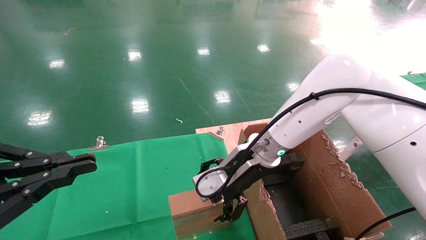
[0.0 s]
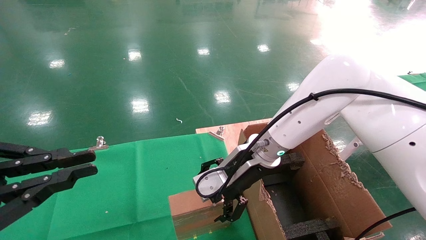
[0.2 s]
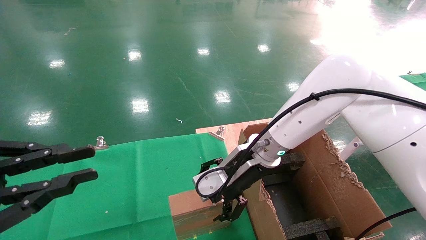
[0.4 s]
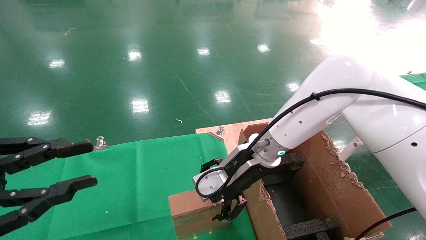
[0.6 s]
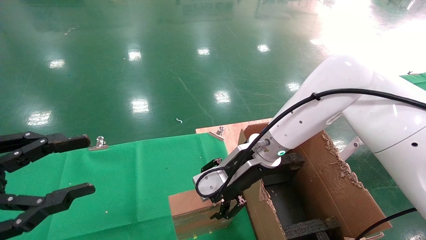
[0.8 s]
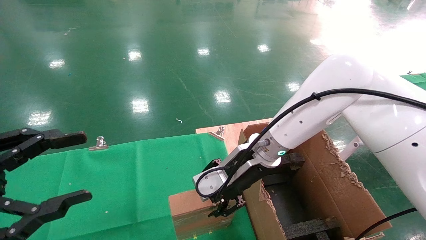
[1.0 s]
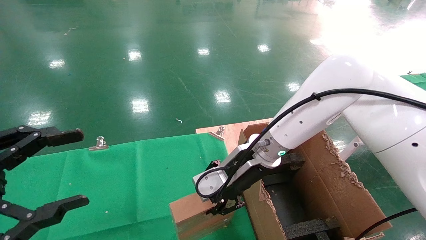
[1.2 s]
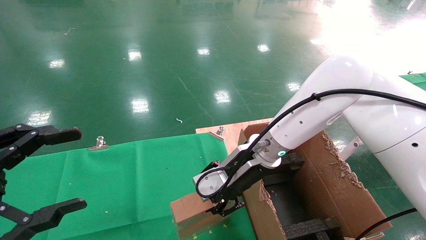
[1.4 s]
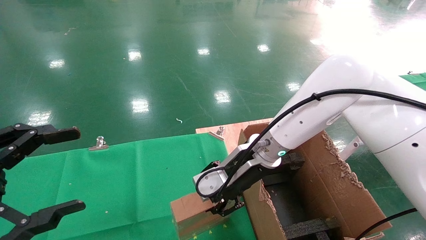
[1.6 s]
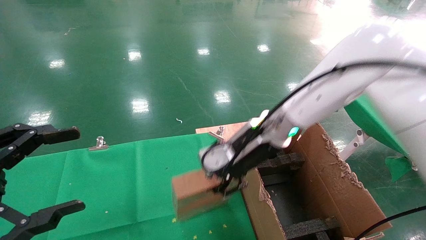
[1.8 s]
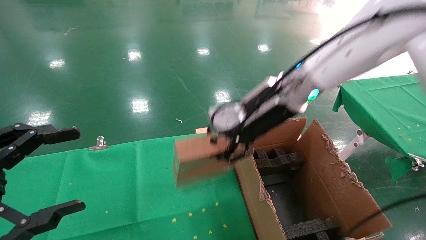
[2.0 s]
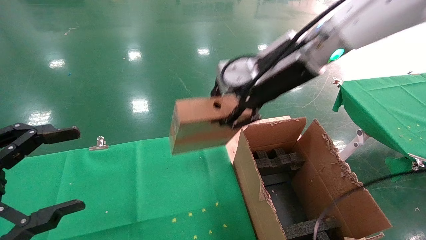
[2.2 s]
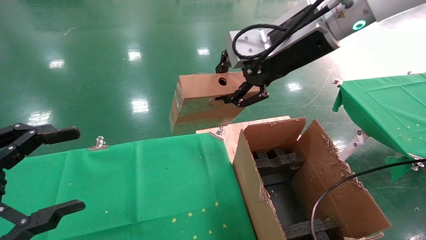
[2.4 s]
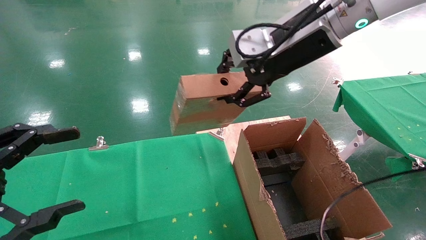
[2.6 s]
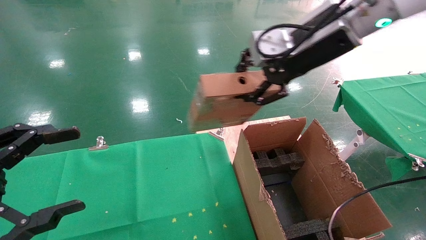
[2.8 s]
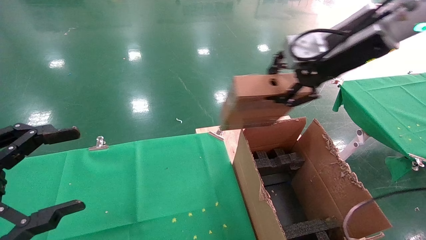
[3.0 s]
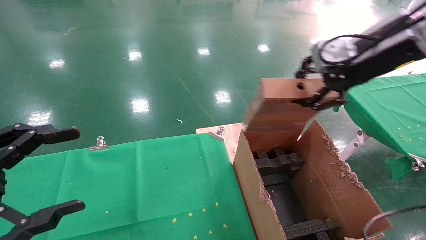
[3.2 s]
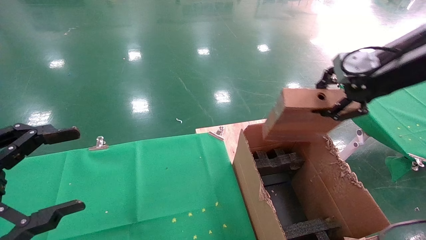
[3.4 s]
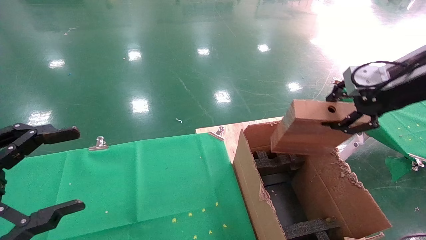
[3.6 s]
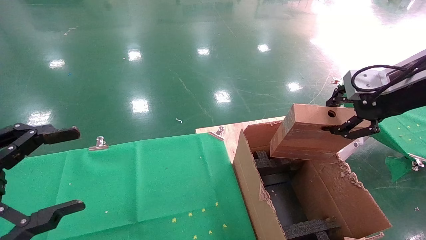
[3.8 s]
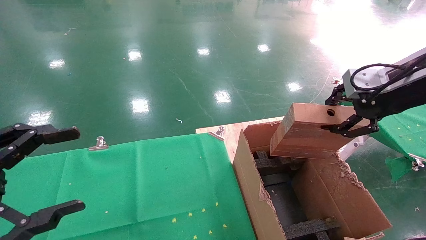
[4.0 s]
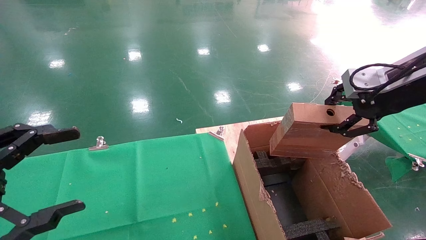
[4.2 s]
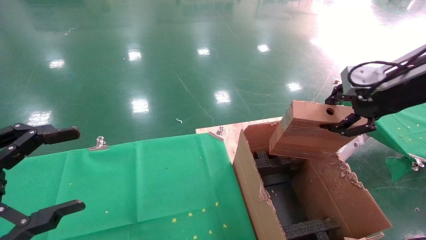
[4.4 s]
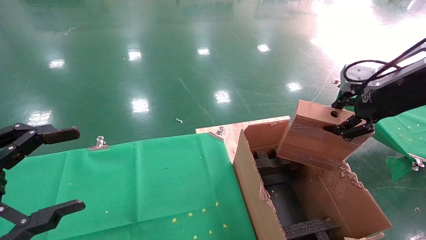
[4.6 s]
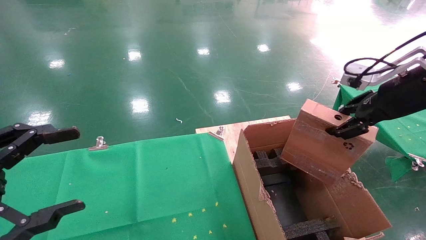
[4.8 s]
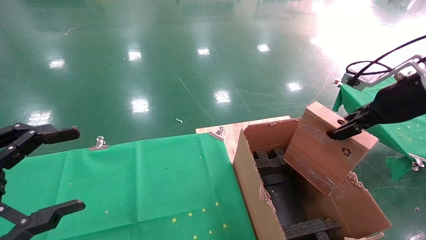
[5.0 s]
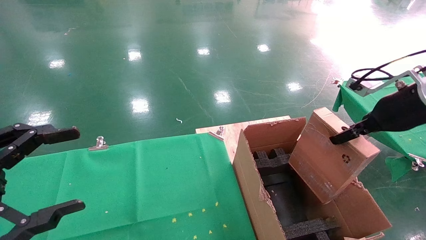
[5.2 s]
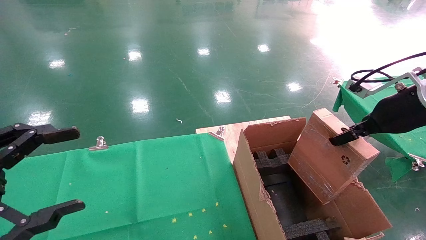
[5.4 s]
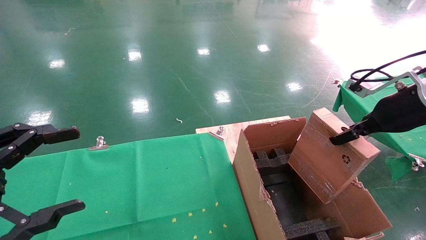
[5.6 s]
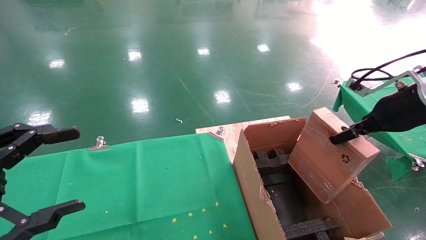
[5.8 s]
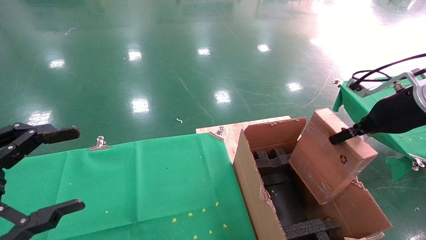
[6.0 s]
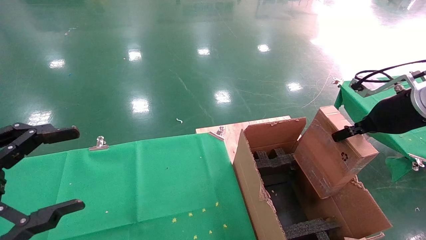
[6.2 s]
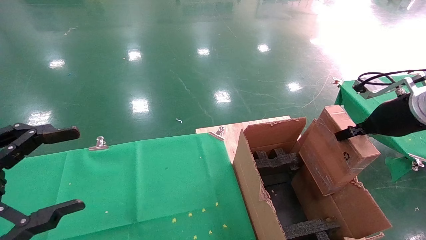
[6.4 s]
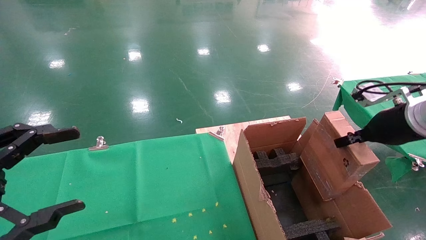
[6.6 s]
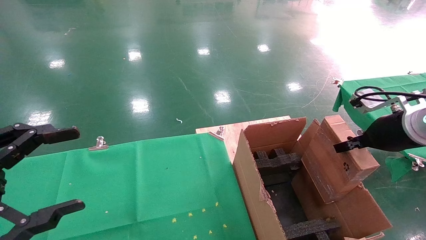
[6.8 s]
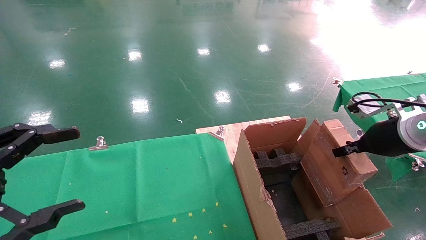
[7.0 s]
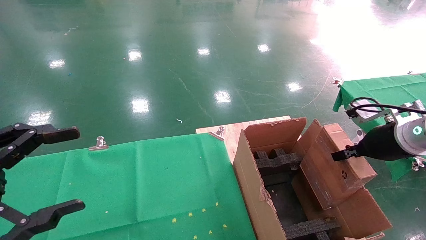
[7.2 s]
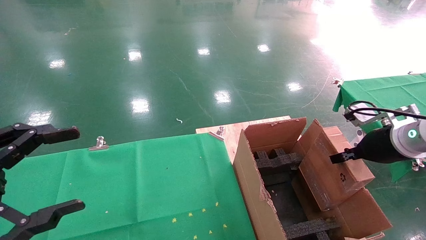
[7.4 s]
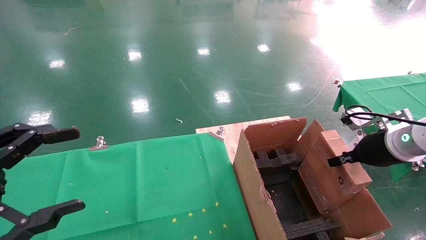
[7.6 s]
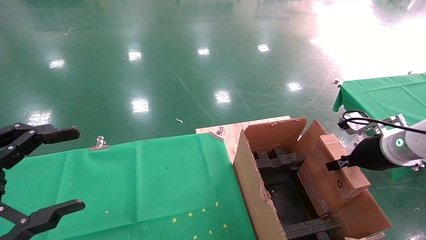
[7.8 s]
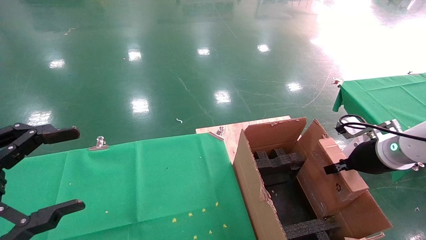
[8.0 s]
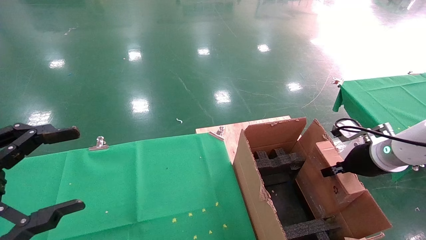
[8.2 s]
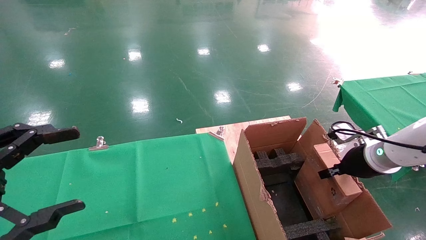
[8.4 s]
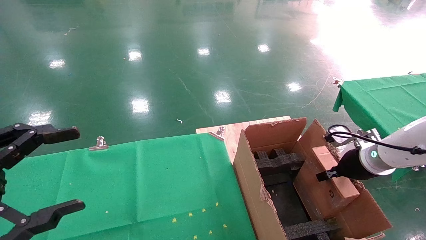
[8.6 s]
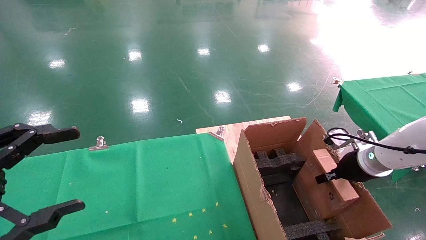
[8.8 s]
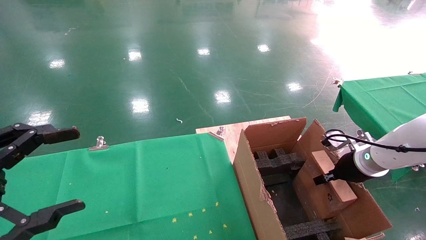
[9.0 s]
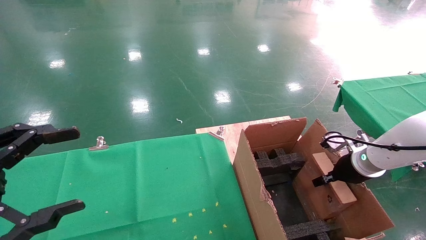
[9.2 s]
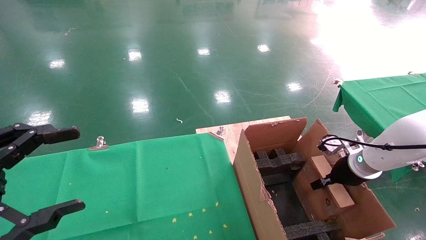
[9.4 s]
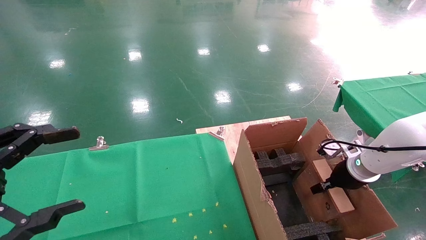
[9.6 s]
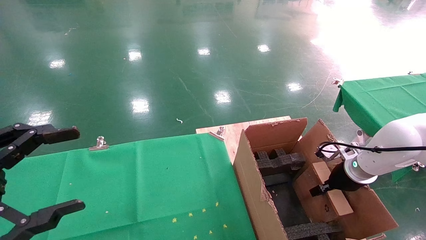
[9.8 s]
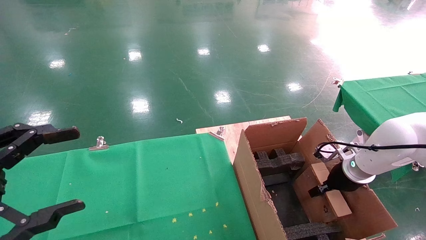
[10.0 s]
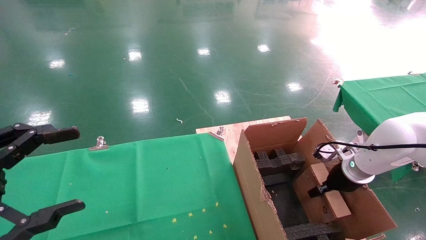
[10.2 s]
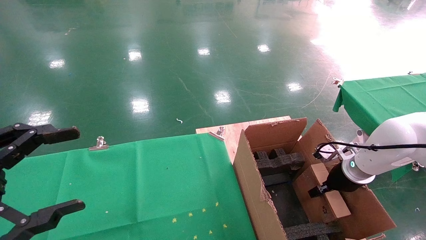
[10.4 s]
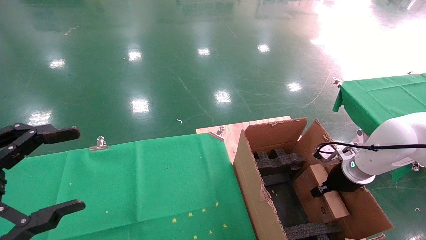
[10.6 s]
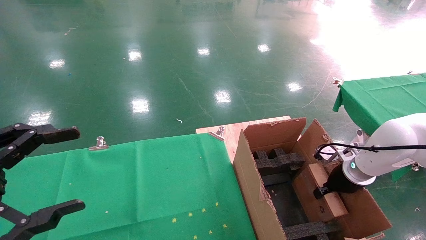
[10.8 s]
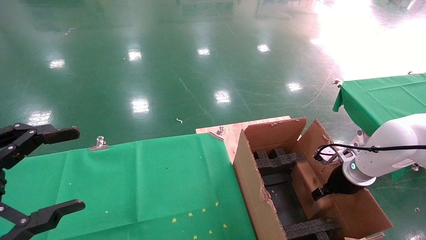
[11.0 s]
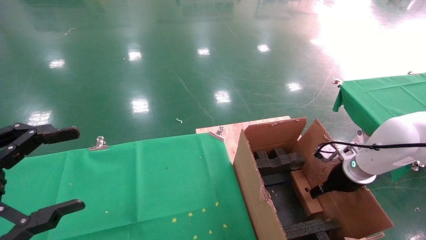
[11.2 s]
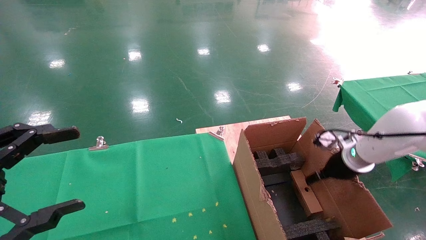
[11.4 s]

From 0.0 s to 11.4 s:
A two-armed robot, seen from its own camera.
Task of the whole recording: using a robotic arm to pick up a cardboard box and palace it the carton.
Step, from 0.0 s to 1.6 s: Pick up the mouse and the power cord paper box.
Step, from 1.8 s to 11.2 s: Place the mouse and the power cord paper box into the container.
From 0.0 s to 1.4 s: The right gripper closes its fingers. Meanwhile the left gripper opens.
From 1.4 s to 2.8 s: The right gripper goes some 25 cm upward and to the right.
From 2.8 s to 4.2 s: The right gripper heads to the right, covering some 15 cm.
From 4.2 s to 5.6 s: The right gripper heads downward, covering some 5 cm.
From 5.6 s to 7.2 s: The right gripper goes some 5 cm downward.
From 7.2 s to 8.6 s: The right gripper travels downward by approximately 10 cm.
From 8.6 s to 10.0 s: The right gripper is displaced downward by roughly 5 cm.
From 10.0 s to 11.4 s: The right gripper shifts by approximately 5 cm, and opens its fingers.

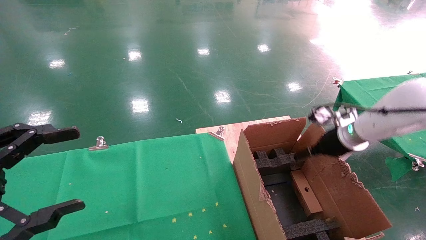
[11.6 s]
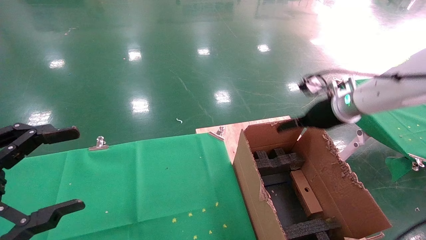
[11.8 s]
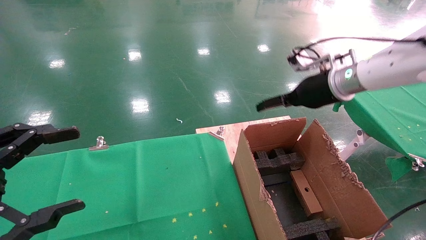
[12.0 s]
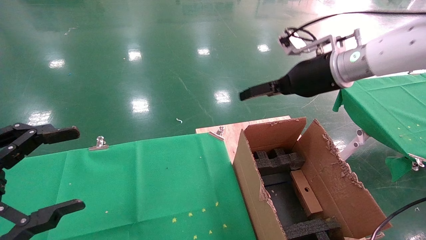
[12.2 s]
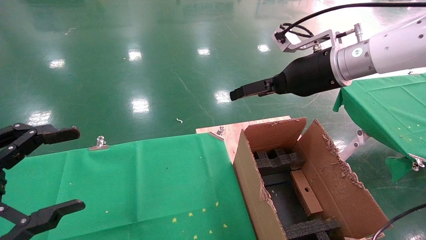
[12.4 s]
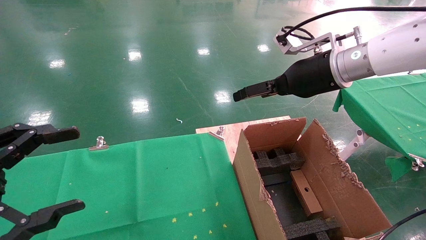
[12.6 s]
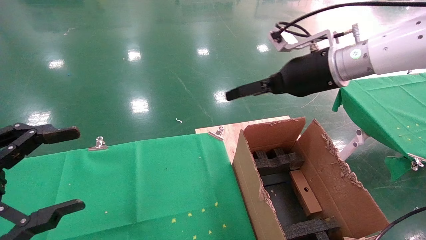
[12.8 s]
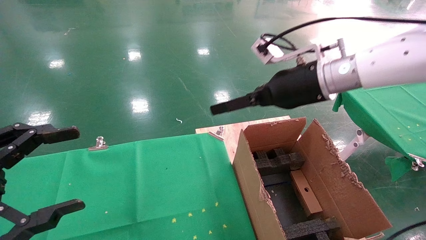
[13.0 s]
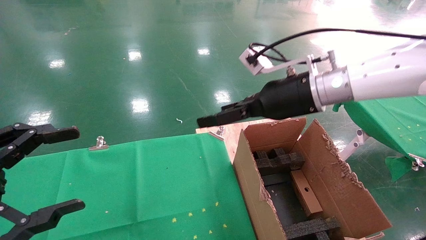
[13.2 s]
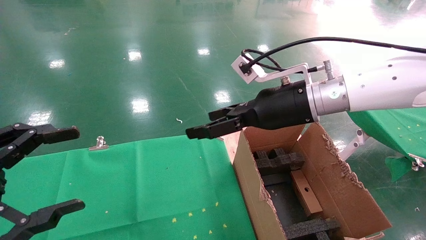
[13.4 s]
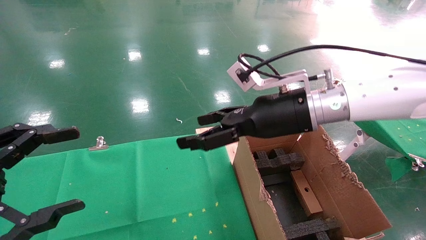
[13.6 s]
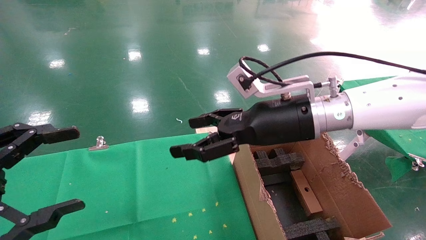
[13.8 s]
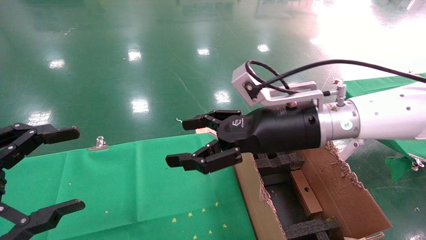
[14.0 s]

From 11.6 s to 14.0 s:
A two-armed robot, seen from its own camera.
Task of the whole recording: using a robotic arm to pick up a cardboard box and palace it the carton.
From 11.6 s to 12.8 s: The right gripper shifts approximately 20 cm upward and to the left.
From 12.8 s to 14.0 s: The right gripper travels to the left, backward and downward by roughly 10 cm.
